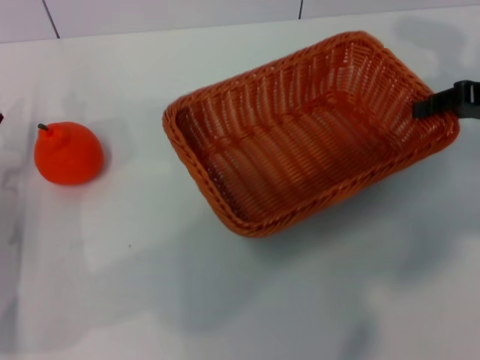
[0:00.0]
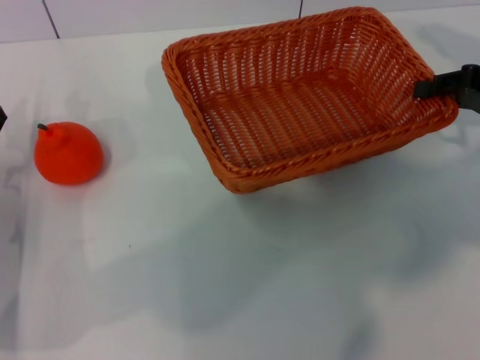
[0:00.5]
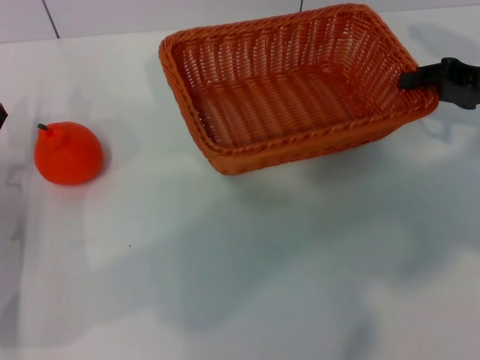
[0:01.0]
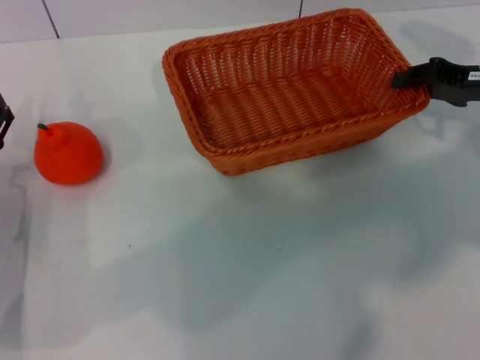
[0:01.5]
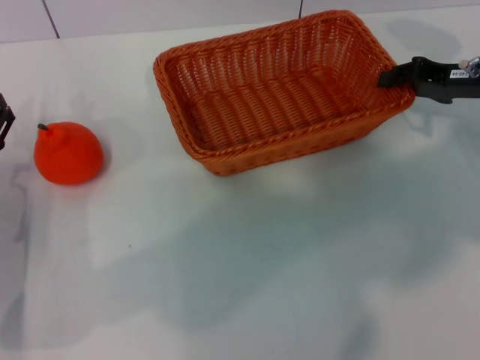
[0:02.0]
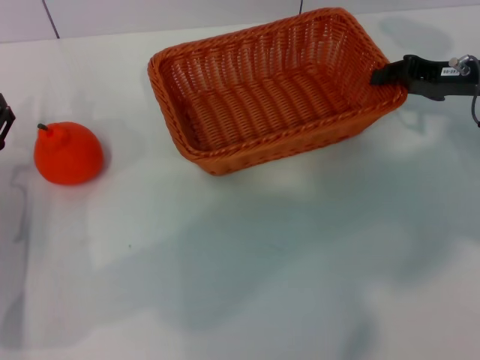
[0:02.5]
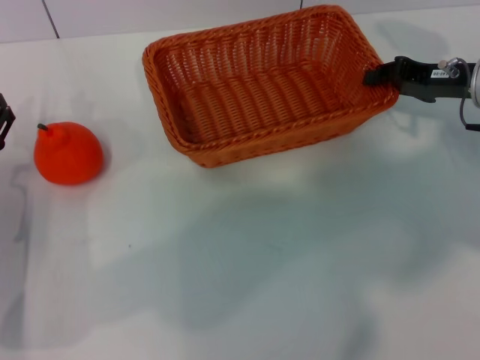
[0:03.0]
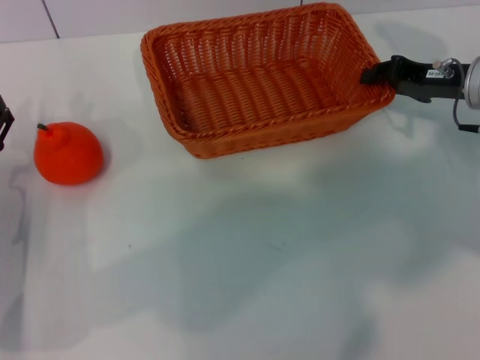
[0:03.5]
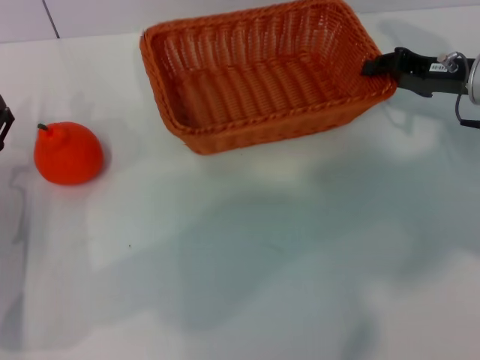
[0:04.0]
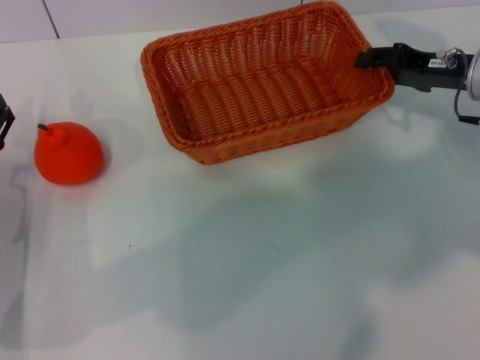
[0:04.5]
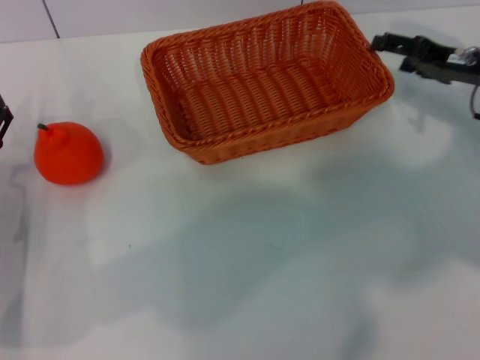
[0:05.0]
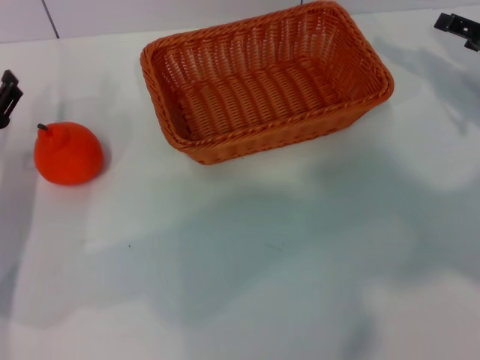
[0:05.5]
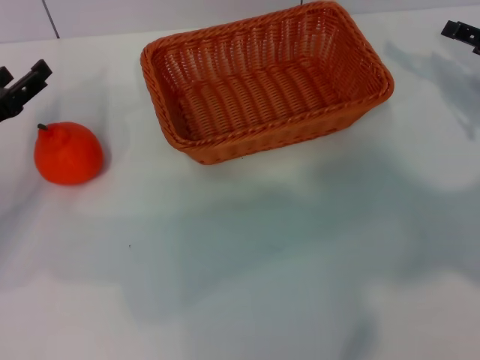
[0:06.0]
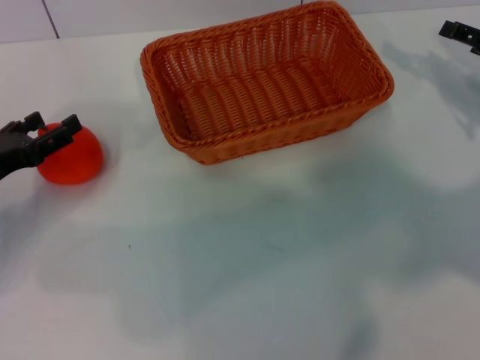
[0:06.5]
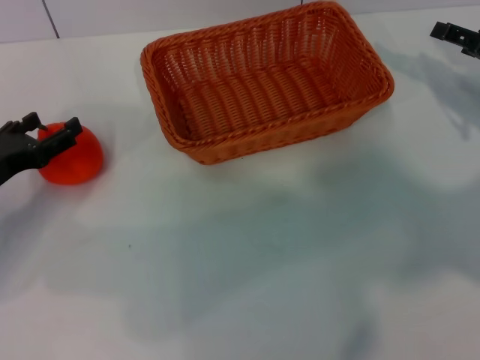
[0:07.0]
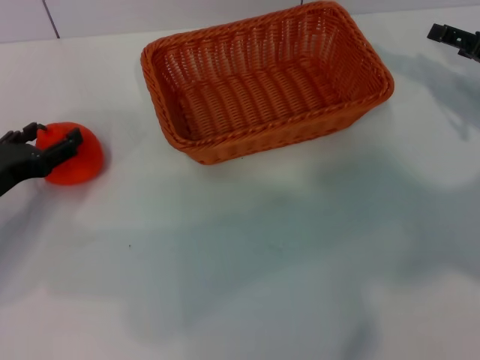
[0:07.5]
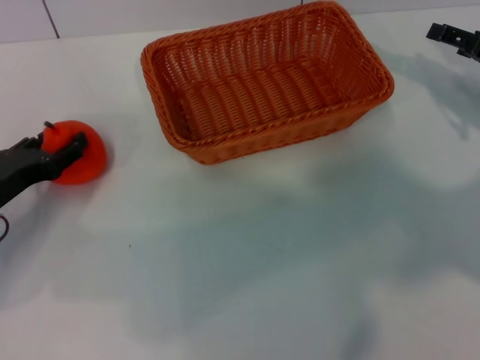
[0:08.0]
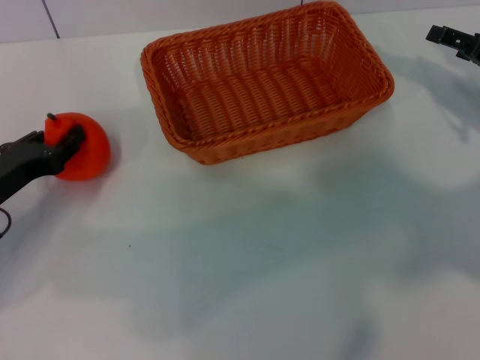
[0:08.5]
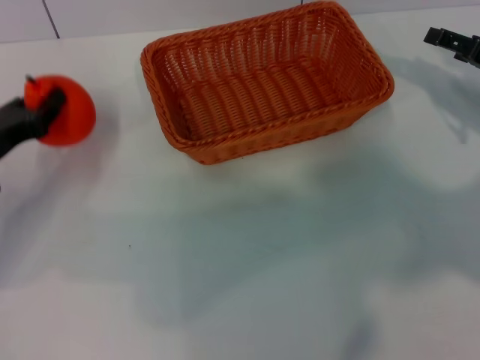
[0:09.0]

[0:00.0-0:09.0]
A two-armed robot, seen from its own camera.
Task of the whole recording: the right gripper pick up the yellow basket and place it horizontally in the middle of the table, the left gripper pick up the orange and place it into the yellow basket.
Step, 0:00.0 to 0:05.0: Place the light basket in the center of view with the right gripper.
Step, 0:05.5 to 0:08.5: Pick up the orange with the left gripper.
0:00.0 to 0:02.0: The right gripper ends up some 5 cm from where it was.
0:02.0 to 0:04.5: The grippers stay close to where they were, moving slightly.
0:04.5 to 0:07.0: The right gripper heads to the right, covering roughly 5 cm, and opens its fingers.
0:07.0 to 0:09.0: The left gripper closes its fingers.

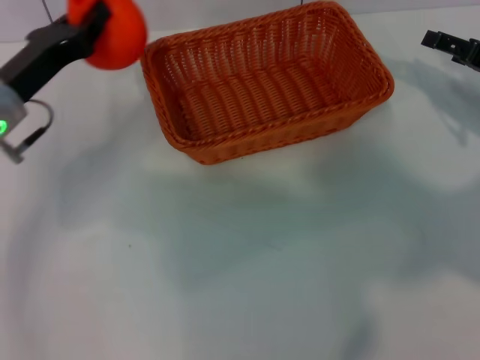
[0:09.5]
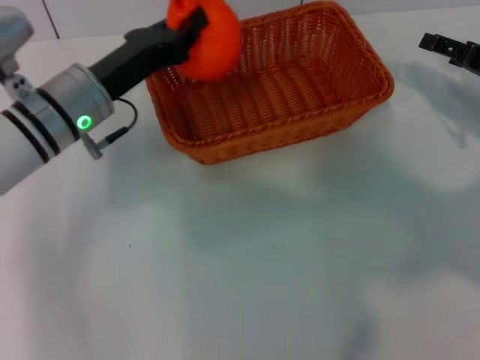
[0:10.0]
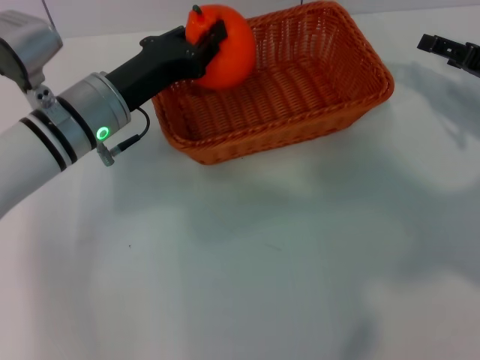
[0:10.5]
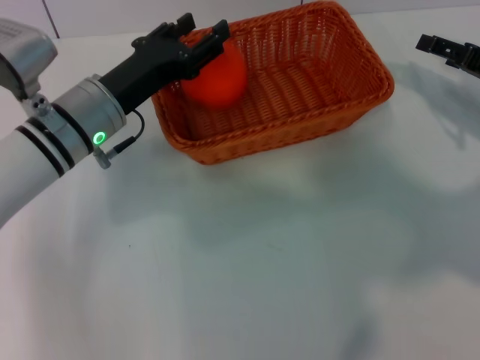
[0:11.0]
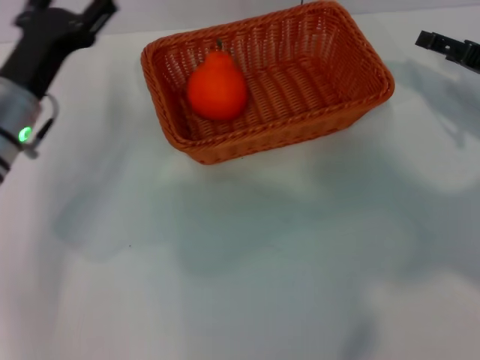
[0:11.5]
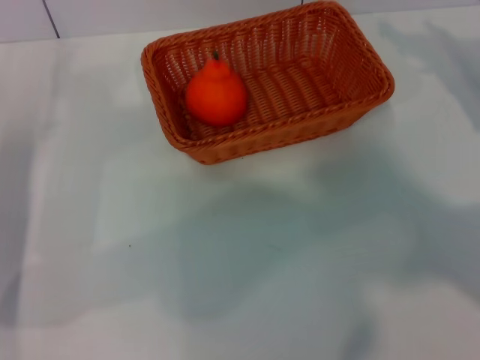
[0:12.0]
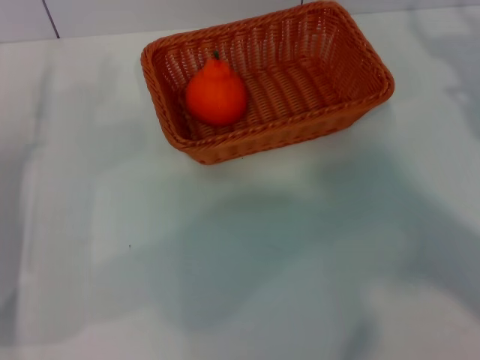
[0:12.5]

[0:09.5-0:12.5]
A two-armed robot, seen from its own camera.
Task of the whole recording: the right gripper pick up the yellow basket and place it horizontally in the middle of the table, the left gripper pick up the orange and place it into the yellow basket.
Step, 0:09.5 to 0:11.0: Place the orange into the light basket with the left gripper.
0:09.5 to 0:11.0: The left gripper is displaced to the right by approximately 10 cm, and opens.
0:11.0 to 0:12.5: The left gripper goes some 15 cm to the left and backward, and opens its fingers, while the right gripper shifts approximately 5 cm backward.
